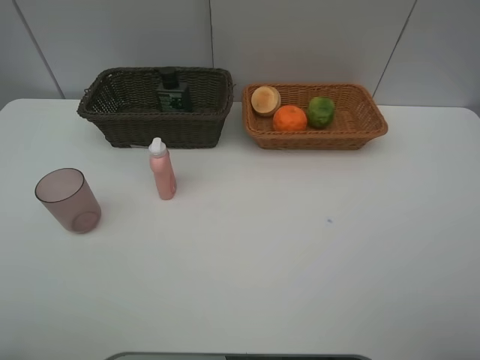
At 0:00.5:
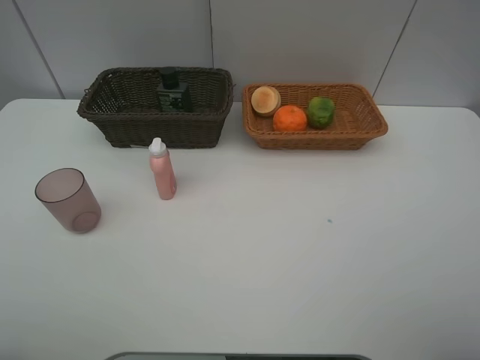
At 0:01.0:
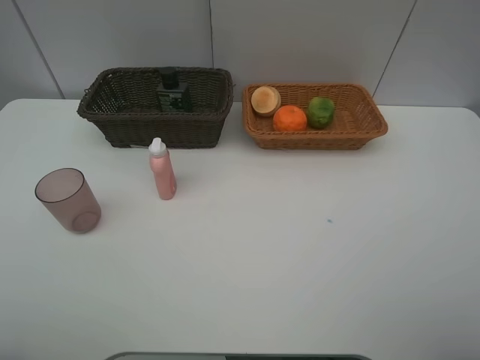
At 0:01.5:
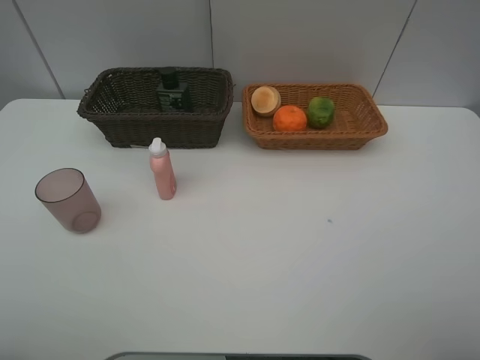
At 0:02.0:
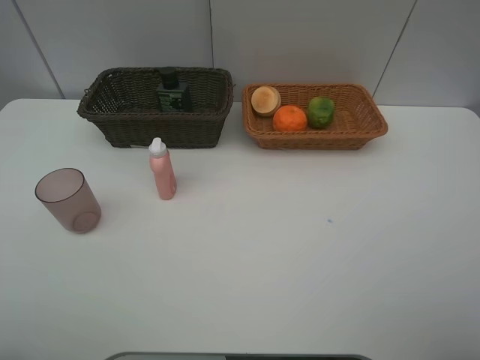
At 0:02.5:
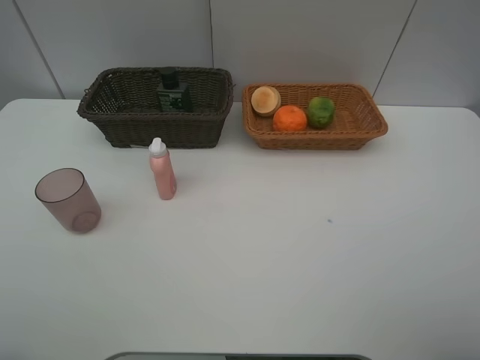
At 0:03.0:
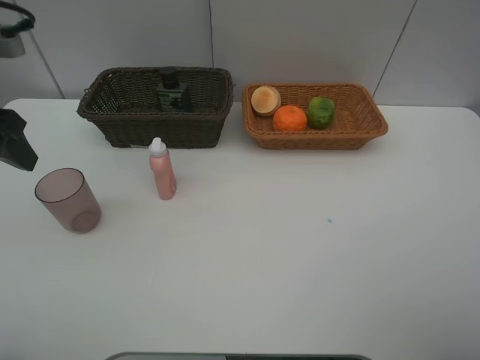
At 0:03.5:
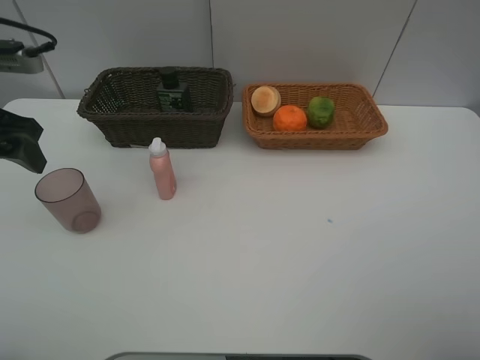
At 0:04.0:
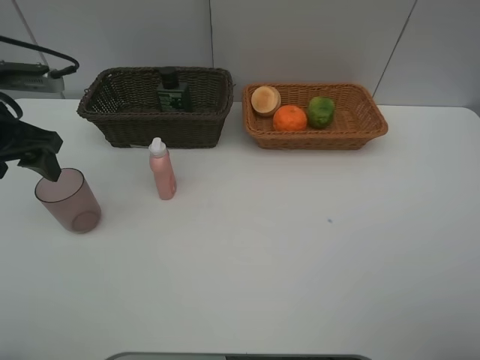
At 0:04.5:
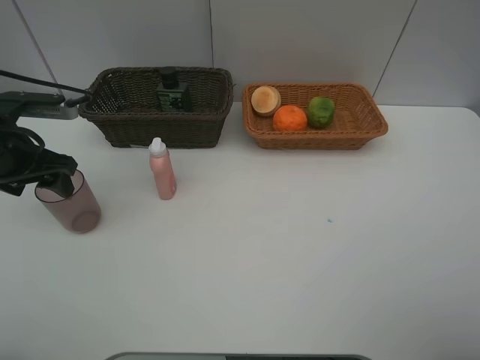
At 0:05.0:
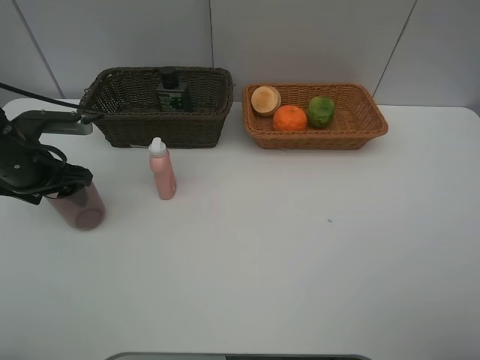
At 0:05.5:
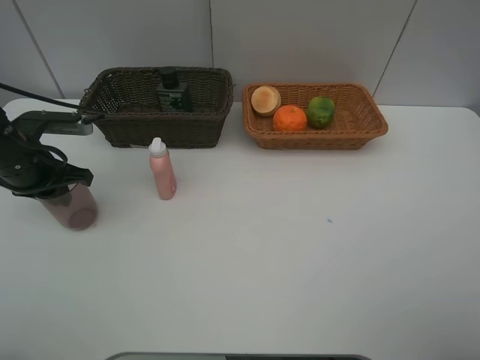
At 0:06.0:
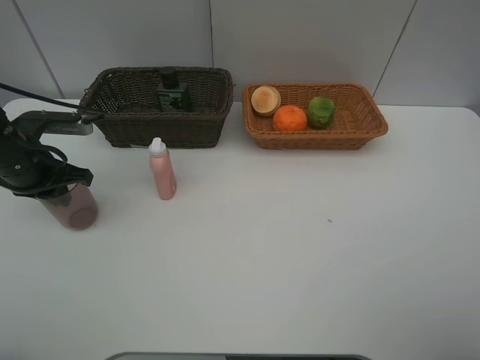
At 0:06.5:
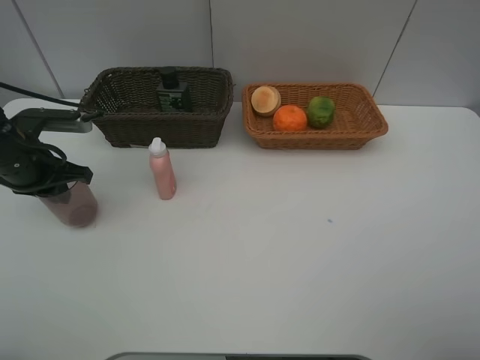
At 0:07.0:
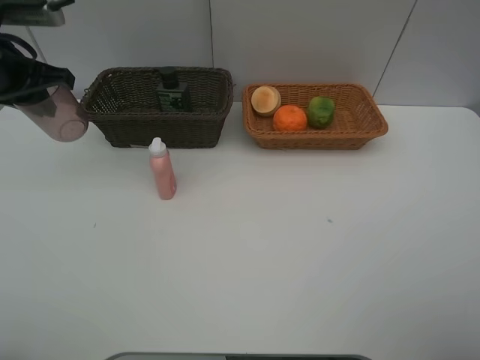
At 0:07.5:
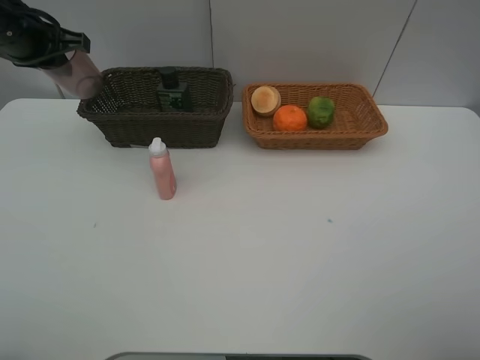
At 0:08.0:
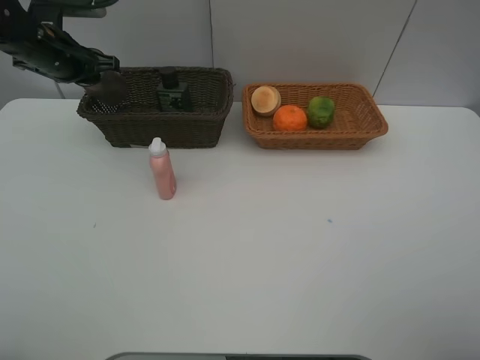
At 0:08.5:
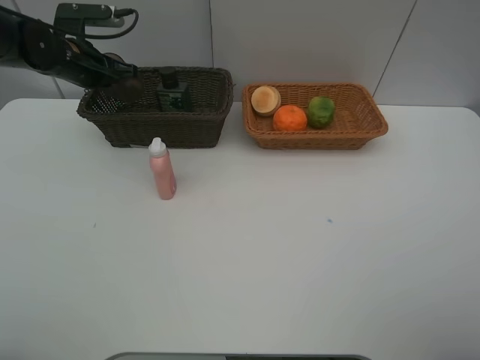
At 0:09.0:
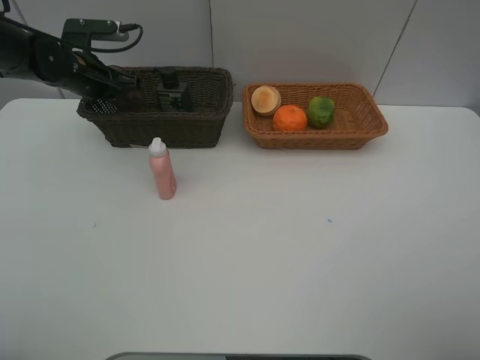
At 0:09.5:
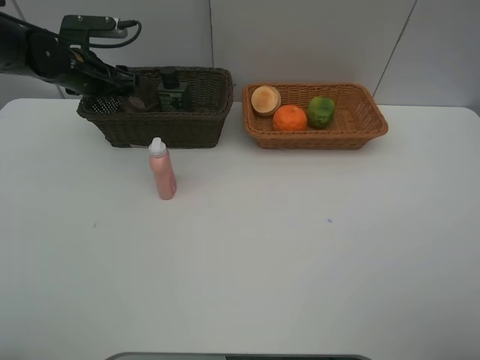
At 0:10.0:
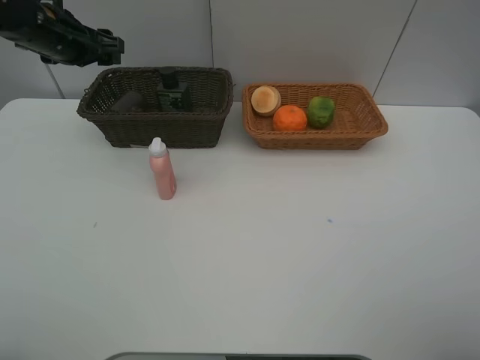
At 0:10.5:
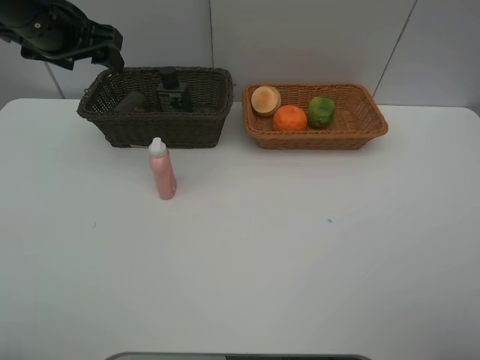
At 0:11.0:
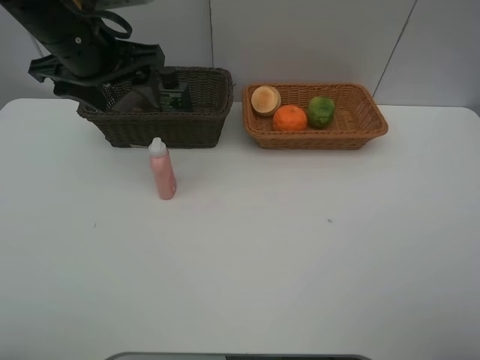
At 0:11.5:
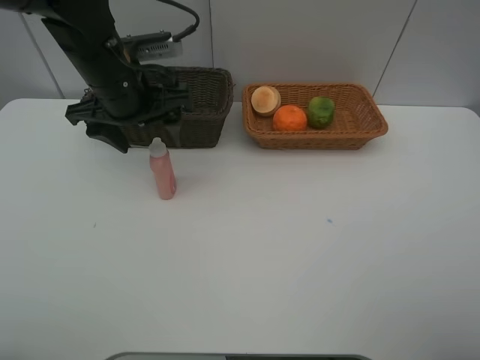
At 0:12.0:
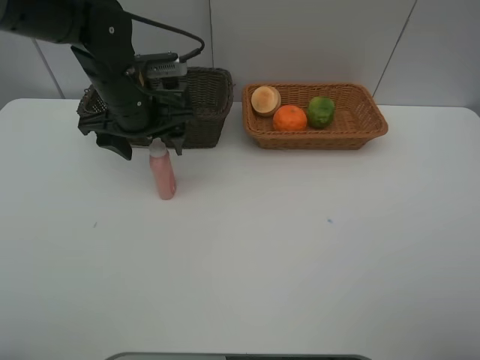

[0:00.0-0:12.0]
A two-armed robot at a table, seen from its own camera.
Task of the whole recording: place multiple objects separately in different baskets.
0:00.0 to 0:02.0: Neither gripper changes place.
0:02.0 to 0:04.0: The left gripper is displaced forward by roughly 25 cm.
0:04.0 to 0:06.0: The left gripper travels downward by some 10 cm, and closes.
0:06.0 to 0:08.0: The left gripper goes approximately 15 cm forward and upward.
0:08.0 to 0:10.0: The left gripper opens.
0:10.0 to 0:12.0: The left gripper shifts roughly 15 cm to the right, backward and downward.

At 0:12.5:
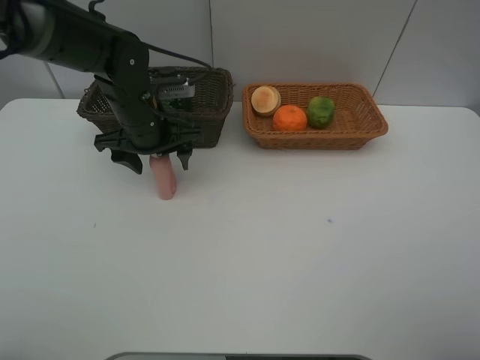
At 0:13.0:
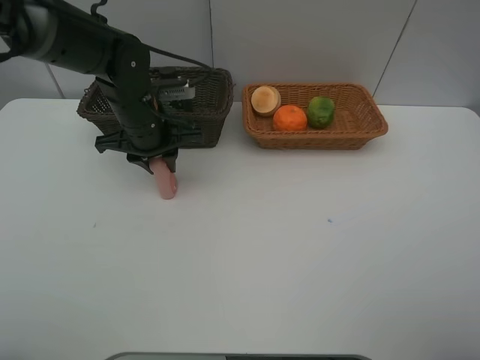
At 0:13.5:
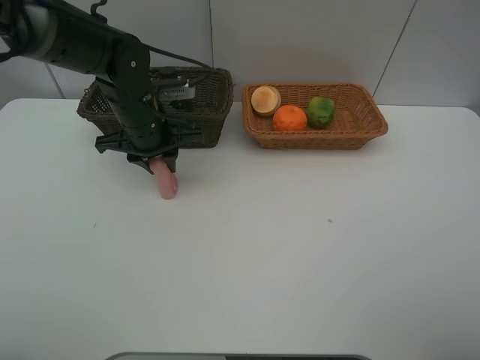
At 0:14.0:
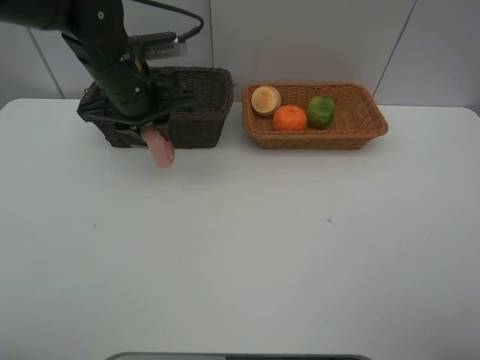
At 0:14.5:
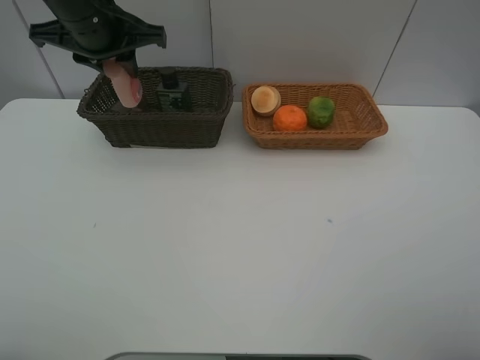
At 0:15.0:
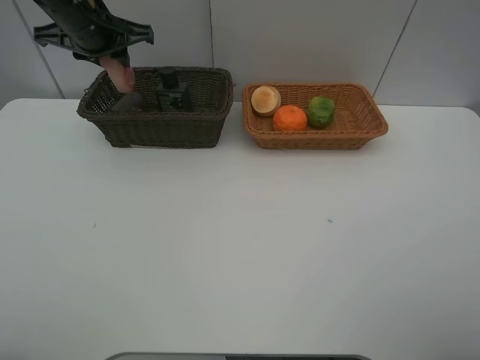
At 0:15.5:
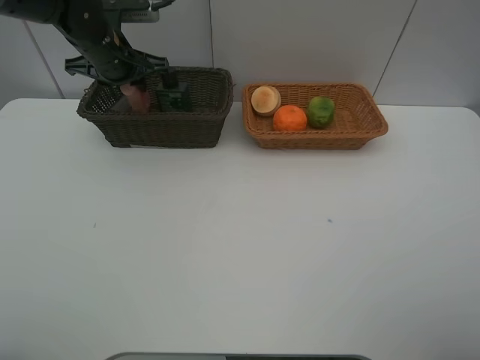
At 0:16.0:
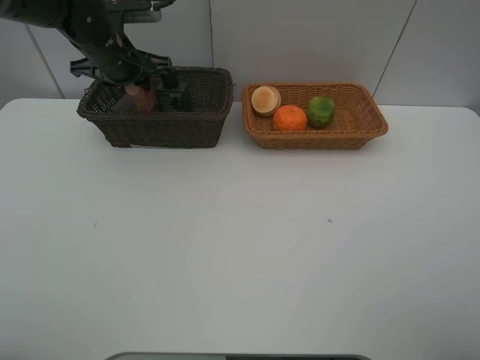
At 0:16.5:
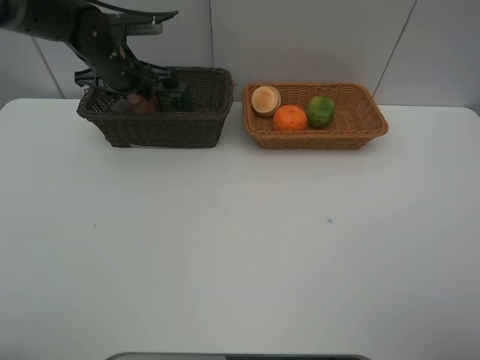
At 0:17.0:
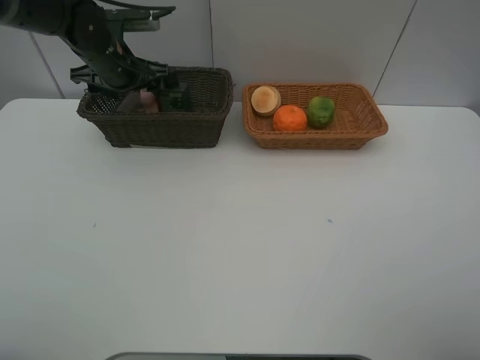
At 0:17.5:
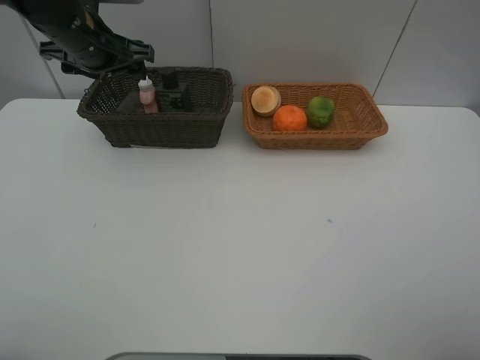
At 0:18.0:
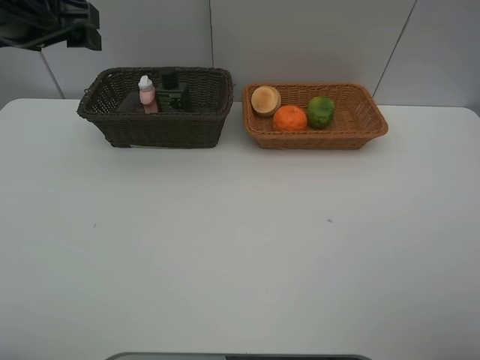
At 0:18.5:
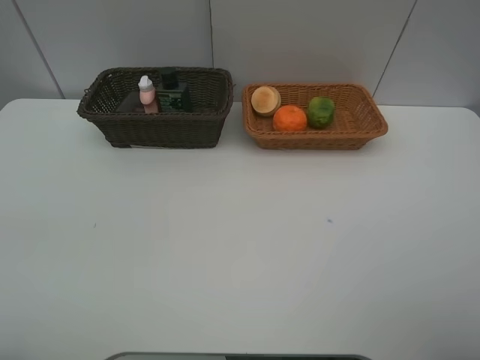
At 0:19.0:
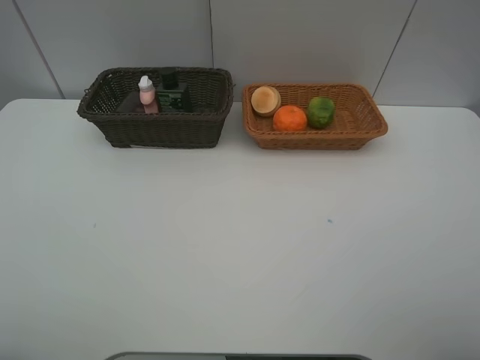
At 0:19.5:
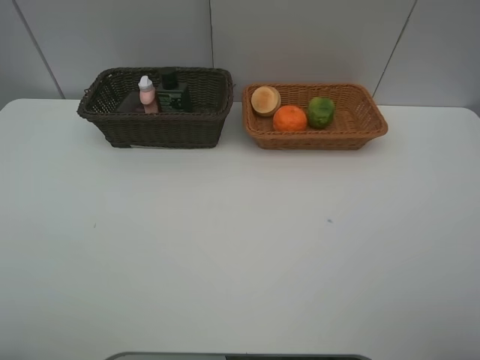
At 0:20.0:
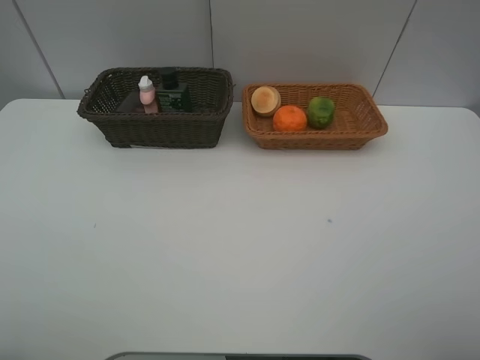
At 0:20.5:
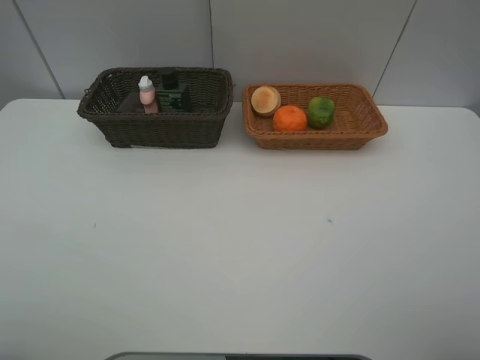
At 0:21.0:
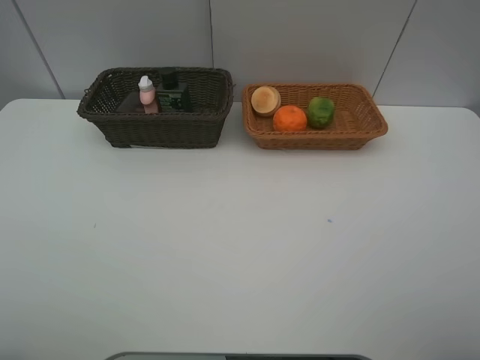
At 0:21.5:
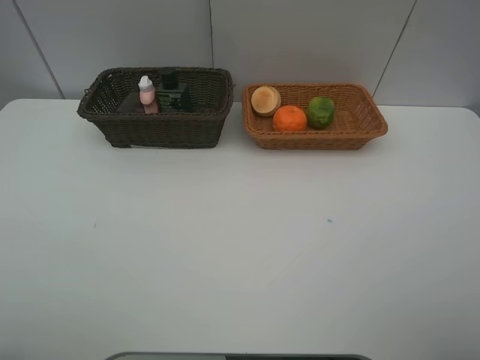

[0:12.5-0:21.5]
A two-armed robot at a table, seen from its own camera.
Task of the whole recording: place multiple objects separately in different baskets.
0:12.5 to 0:14.5: The left gripper travels upward by some 15 cm, and closes up.
0:14.5 to 0:17.0: The left gripper goes roughly 10 cm downward and forward, and opens.
0:17.0 to 0:19.5: The left gripper moves backward, about 40 cm.

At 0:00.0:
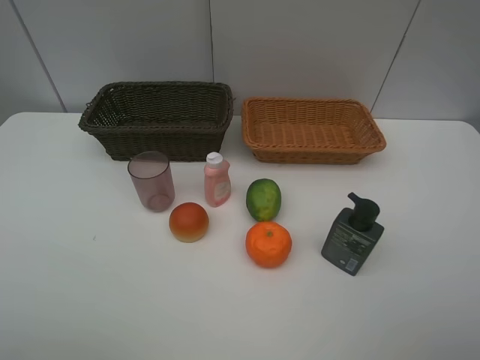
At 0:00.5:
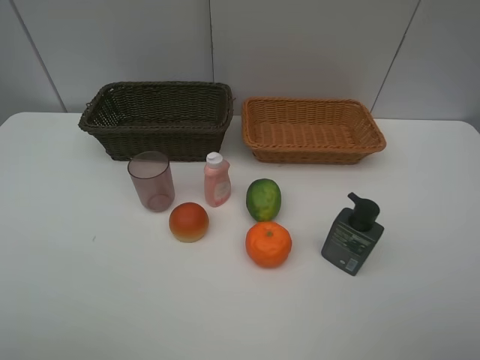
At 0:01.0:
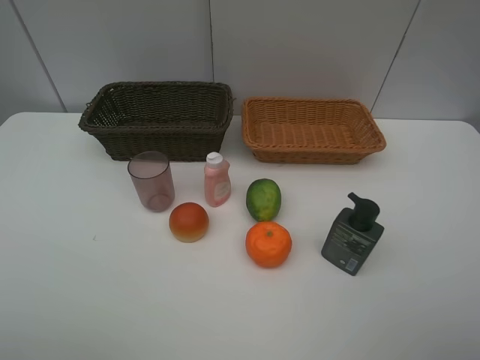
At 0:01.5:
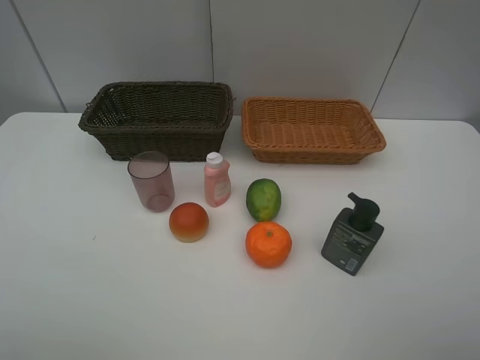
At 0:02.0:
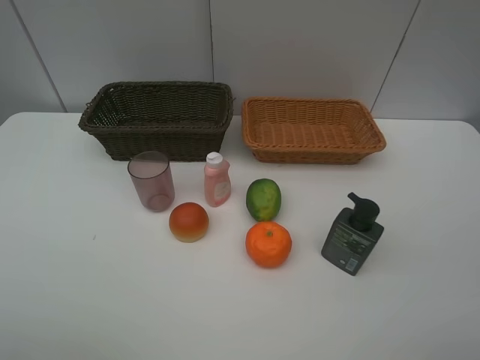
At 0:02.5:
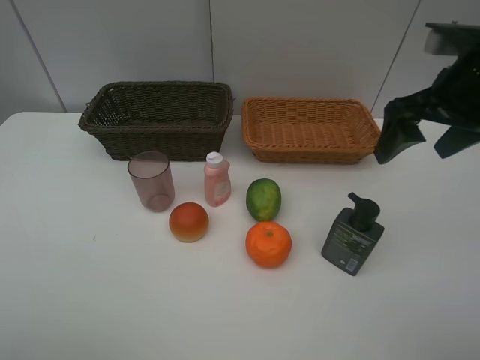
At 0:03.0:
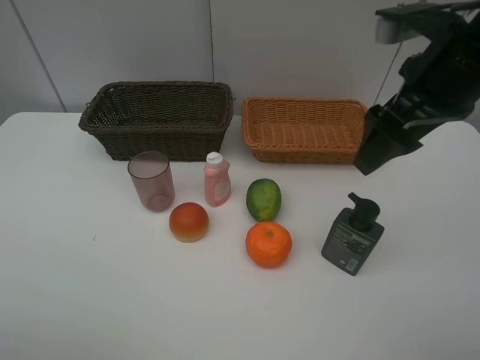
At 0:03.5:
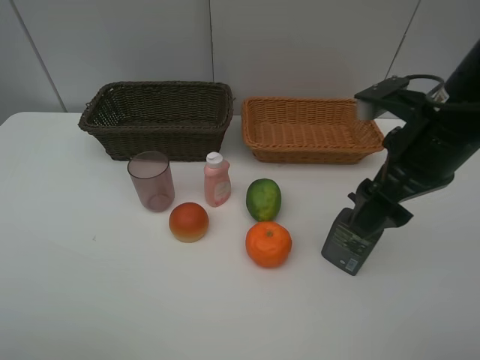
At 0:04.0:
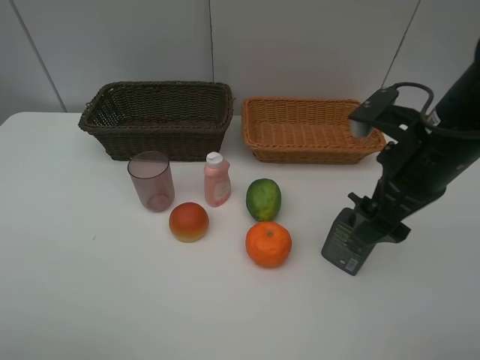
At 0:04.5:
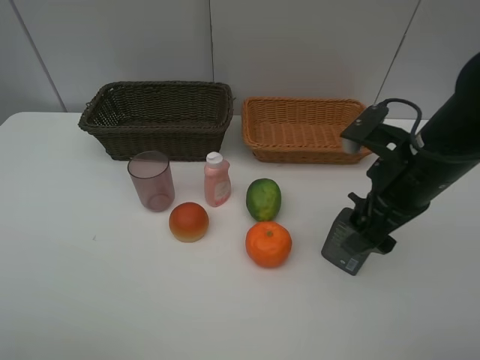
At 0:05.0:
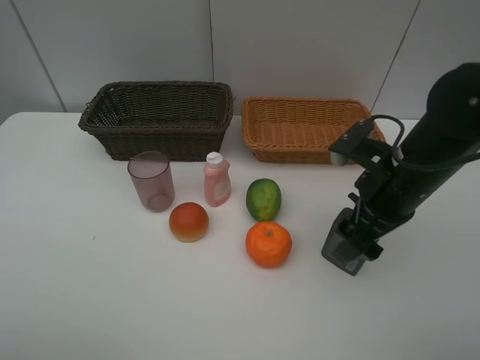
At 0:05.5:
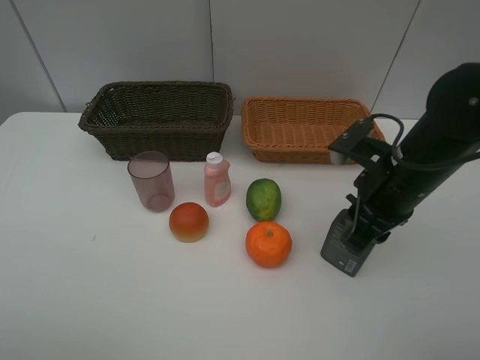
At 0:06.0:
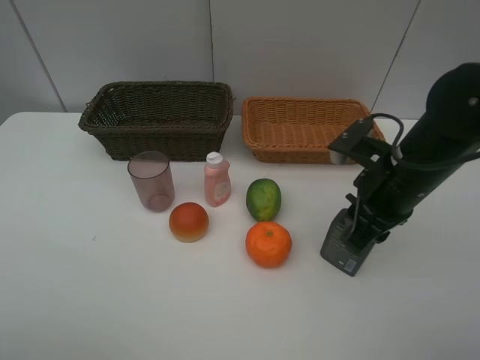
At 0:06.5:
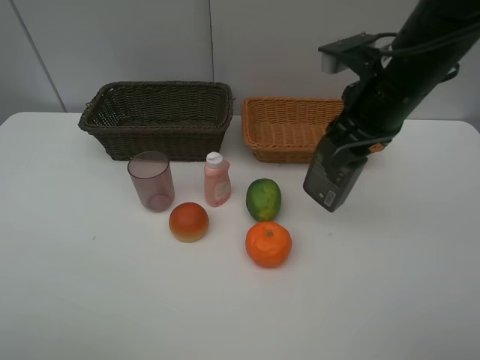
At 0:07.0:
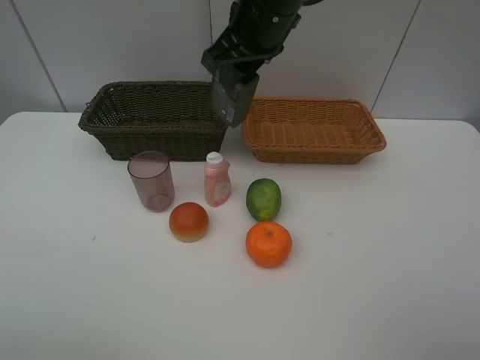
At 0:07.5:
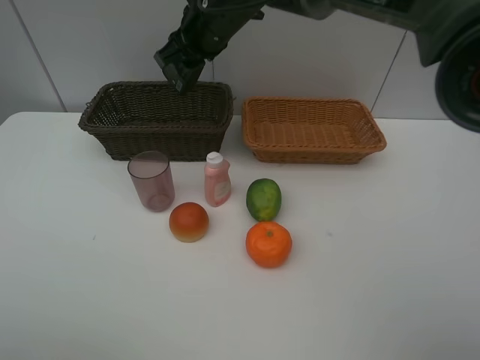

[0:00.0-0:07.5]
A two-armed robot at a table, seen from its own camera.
Task of the whole recording: place multiple objects separately in different baskets.
0:02.0 to 0:04.0: The right gripper heads downward, to the left and forward, covering roughly 20 cm.
0:04.0 to 0:05.5: The right gripper changes place by approximately 5 cm, and closes.
0:05.5 to 0:07.5: The right gripper travels to the left and forward by roughly 30 cm.
